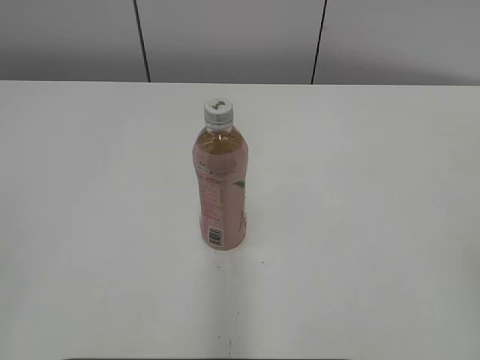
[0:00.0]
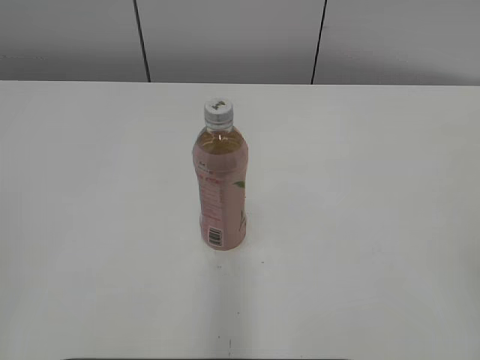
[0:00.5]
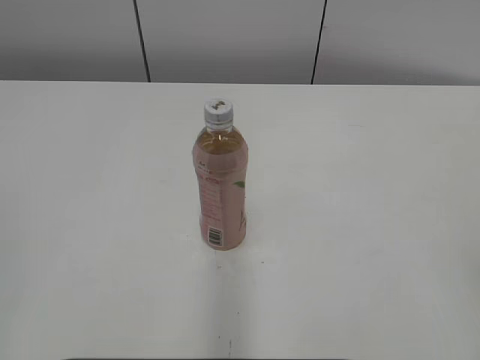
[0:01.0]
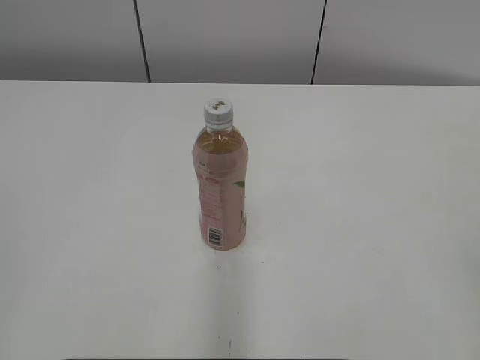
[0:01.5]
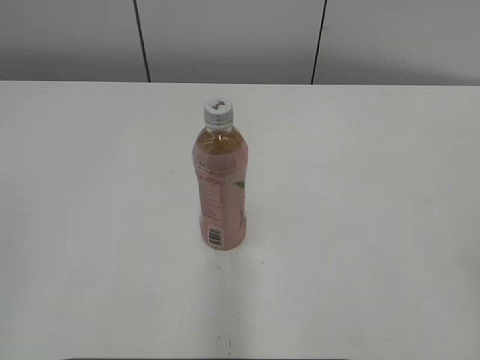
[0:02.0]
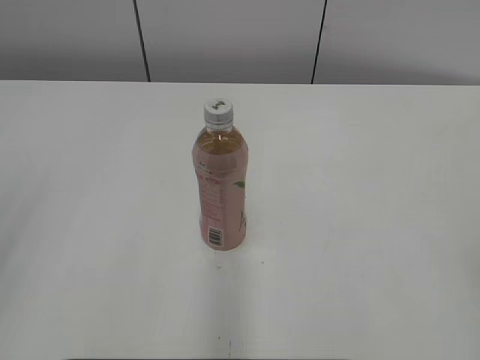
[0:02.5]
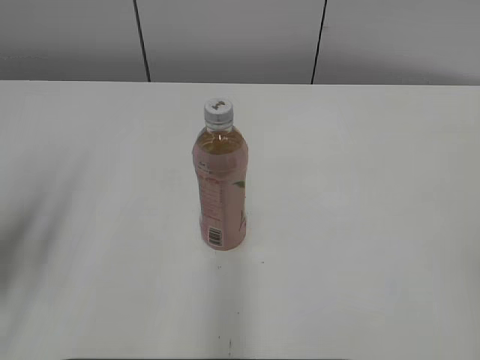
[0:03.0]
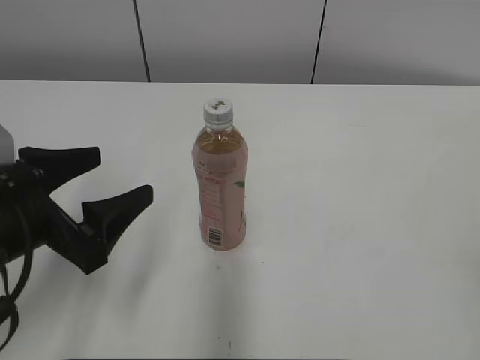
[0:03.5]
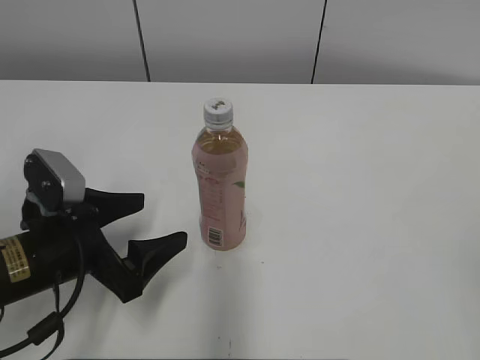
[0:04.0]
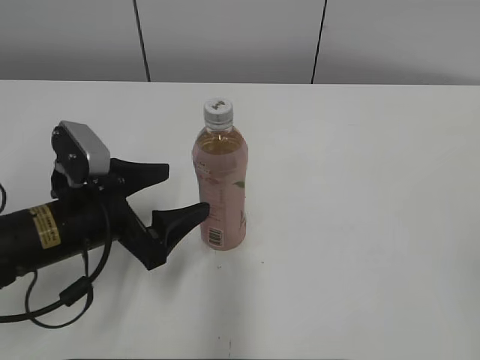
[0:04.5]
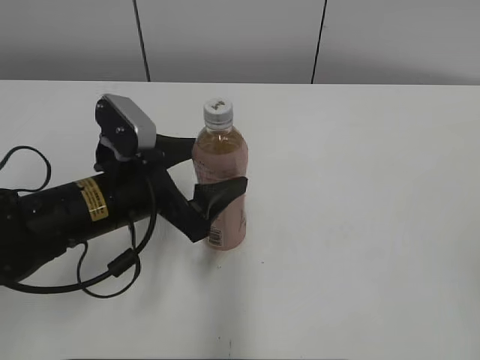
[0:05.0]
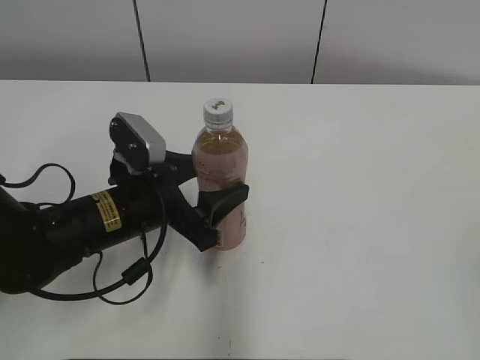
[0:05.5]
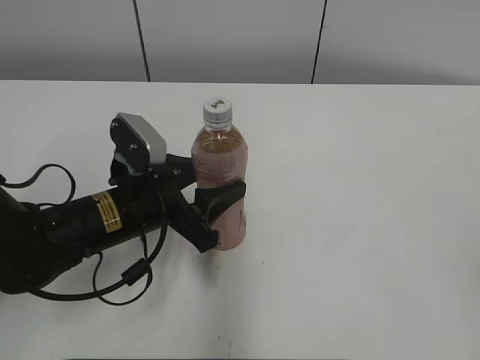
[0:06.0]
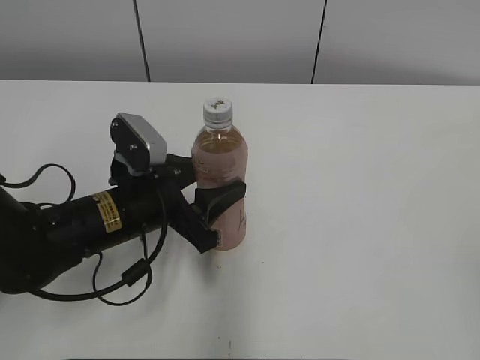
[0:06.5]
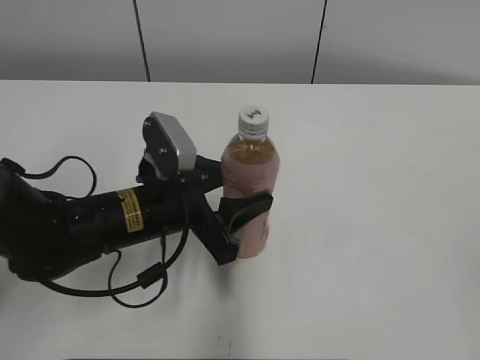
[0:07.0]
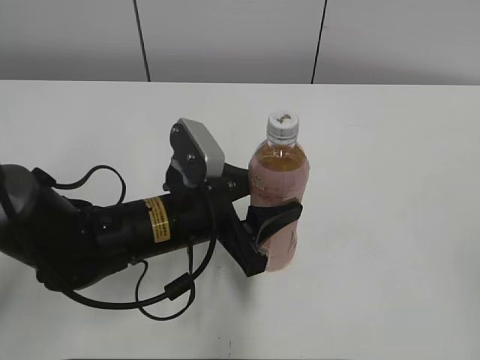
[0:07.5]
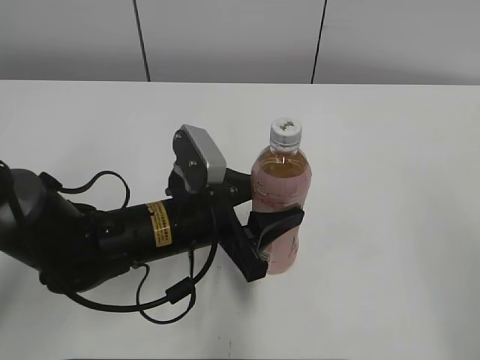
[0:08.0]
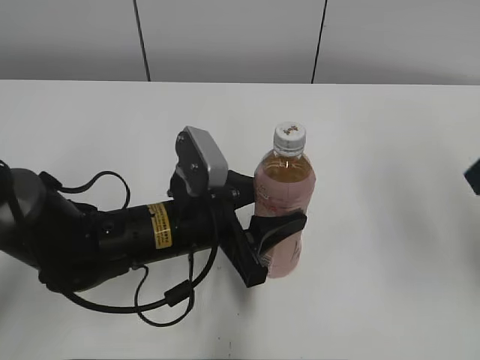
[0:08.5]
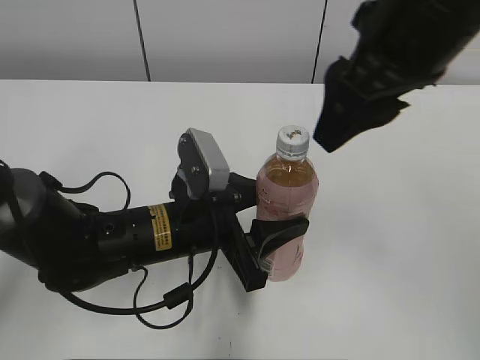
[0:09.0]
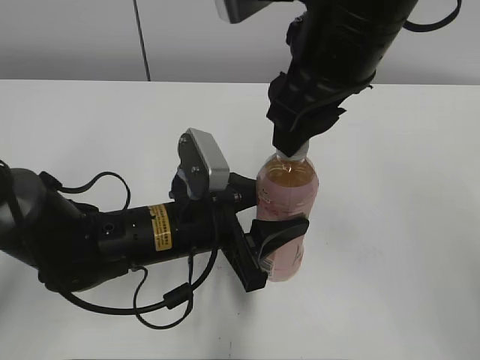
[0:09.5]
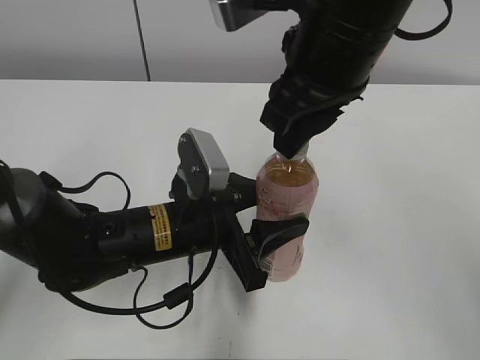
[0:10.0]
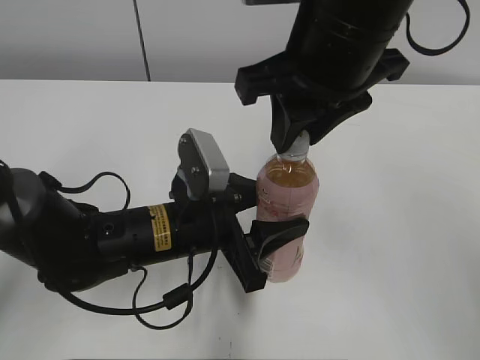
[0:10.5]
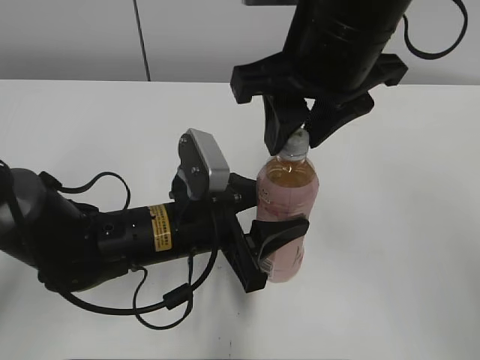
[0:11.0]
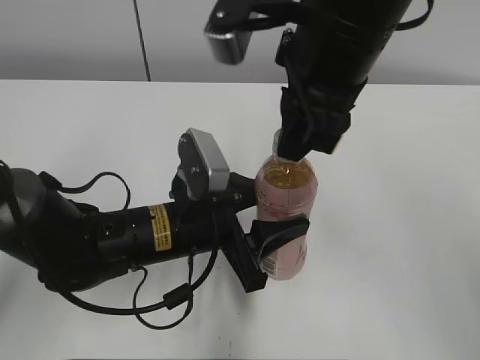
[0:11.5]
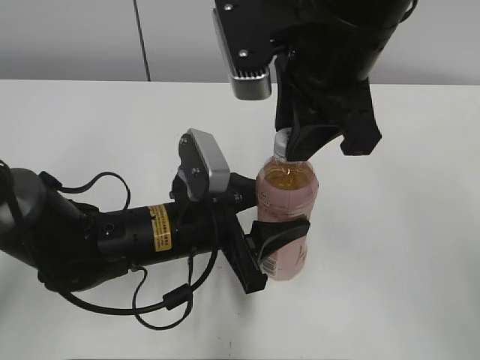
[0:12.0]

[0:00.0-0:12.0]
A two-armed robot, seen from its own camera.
Step, 0:00.0 to 0:05.5: Grab the Peach Oolong Tea with the left hand.
Step, 0:06.0 to 0:08.5: Move the Peach Oolong Tea from left to right.
0:02.0 to 0:04.0: The left gripper moves forward, downward and to the right, about 30 cm, and opens.
0:04.0 to 0:06.0: The left gripper shifts some 10 cm to the right and forward, and closes its fingers.
0:06.0 to 0:08.0: The right gripper ends up about 5 cm from where it was, while the left gripper moves to the right, some 5 cm.
0:08.0 to 0:10.0: The right gripper goes about 30 cm forward and to the left, and closes up.
0:10.0 to 0:12.0: The right gripper opens, then closes again.

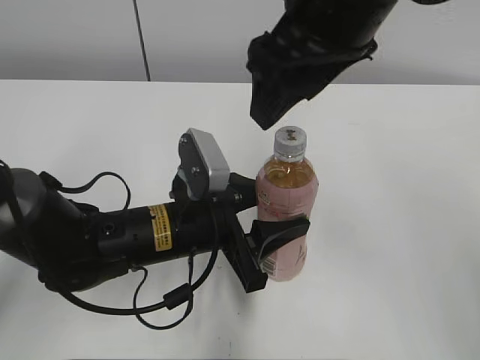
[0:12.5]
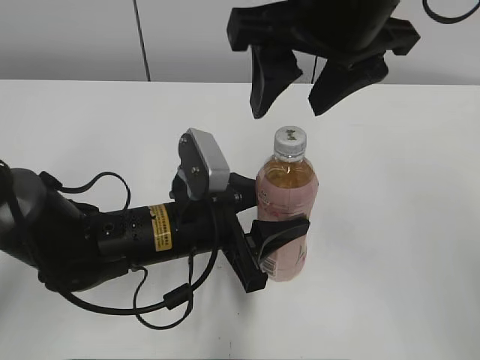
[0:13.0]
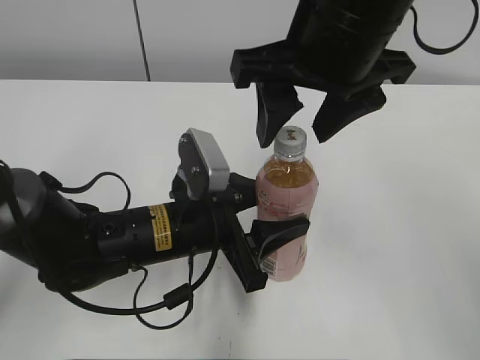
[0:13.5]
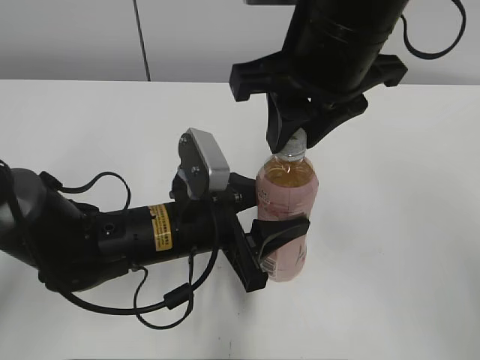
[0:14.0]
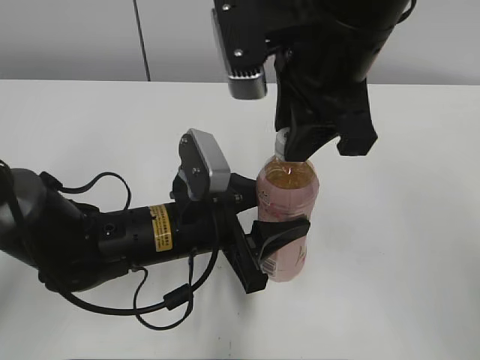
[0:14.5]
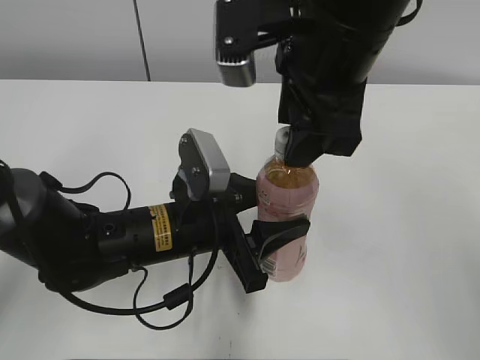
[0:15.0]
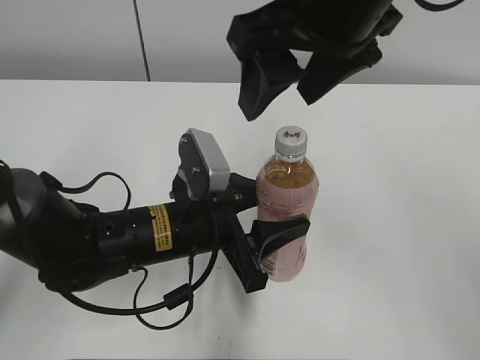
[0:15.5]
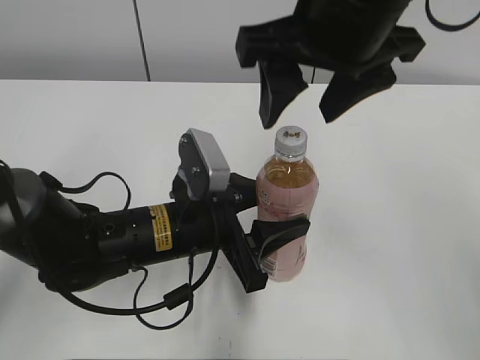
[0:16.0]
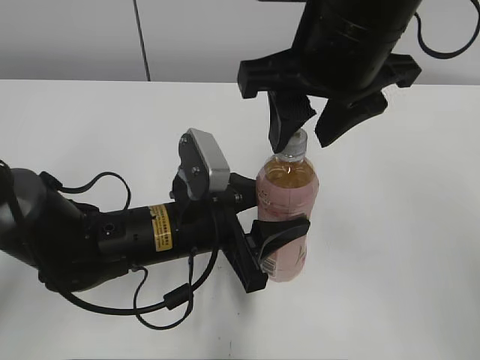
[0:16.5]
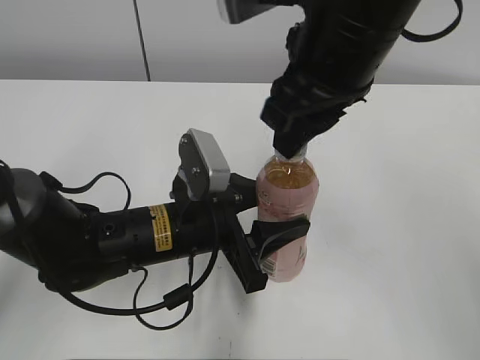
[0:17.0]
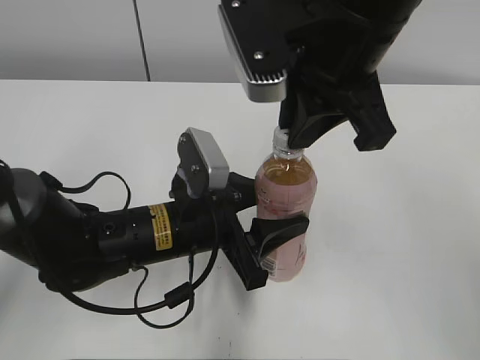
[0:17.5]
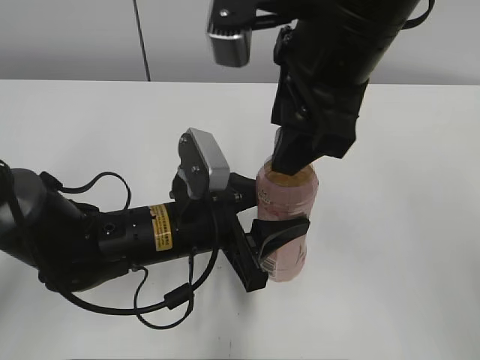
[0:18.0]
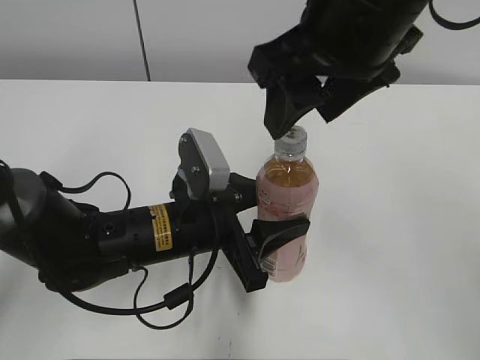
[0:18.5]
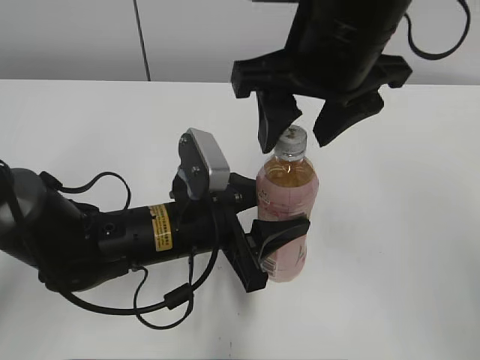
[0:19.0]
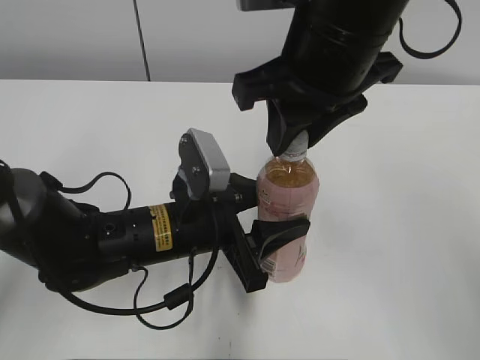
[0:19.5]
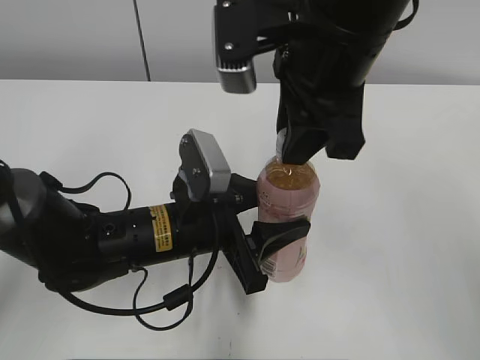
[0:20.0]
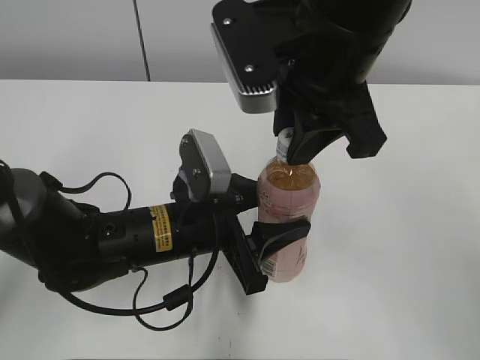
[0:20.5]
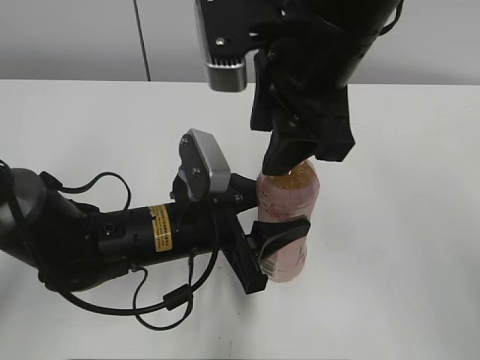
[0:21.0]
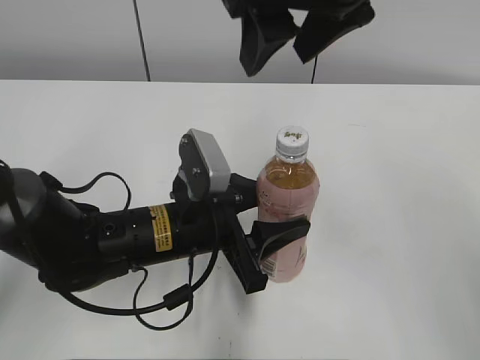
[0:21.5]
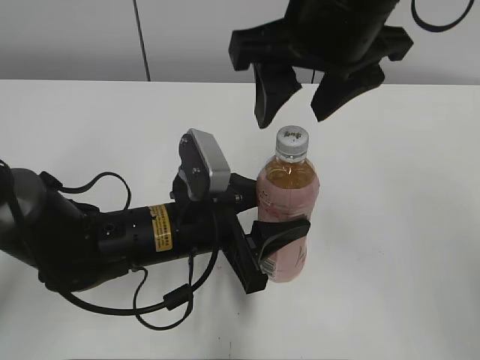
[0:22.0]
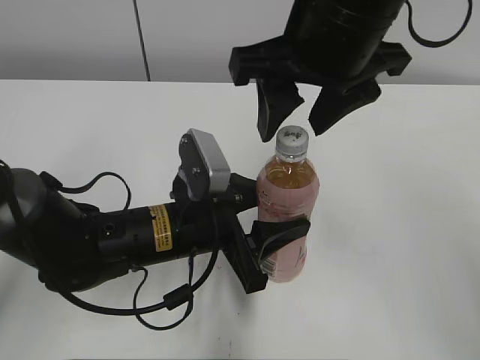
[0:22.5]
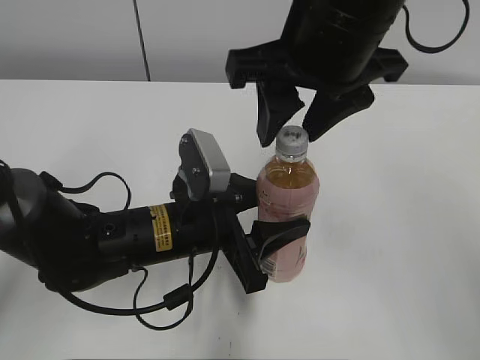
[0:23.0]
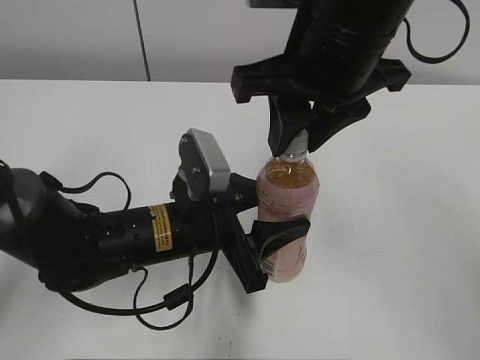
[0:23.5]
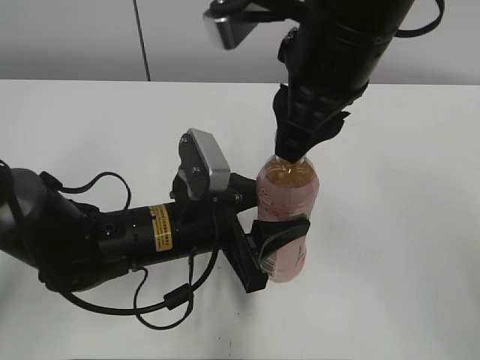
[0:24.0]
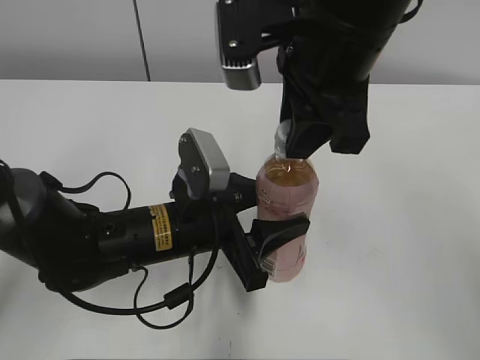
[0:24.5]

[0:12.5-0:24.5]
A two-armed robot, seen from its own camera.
0:12.5 to 0:14.5: The right gripper closes up.
0:14.5 to 0:16.5: The right gripper opens its fingers.
0:16.5 to 0:18.5: The right gripper closes and opens again.
0:18.5 to 0:20.5: The right gripper closes.
0:20.5 to 0:22.5: The right gripper opens its fingers.
0:22.5 to 0:24.5: The right gripper closes its fingers.

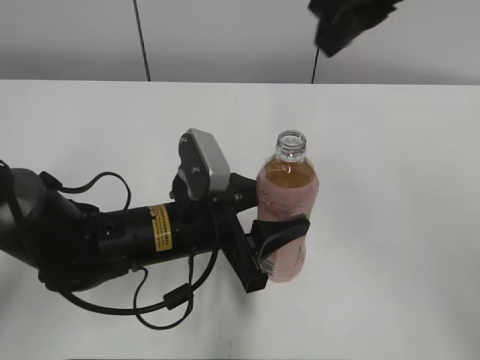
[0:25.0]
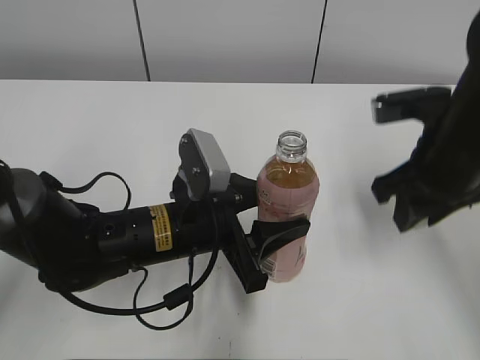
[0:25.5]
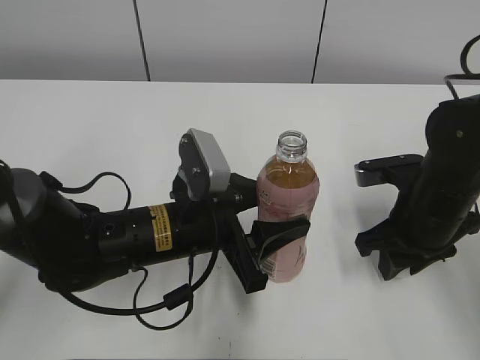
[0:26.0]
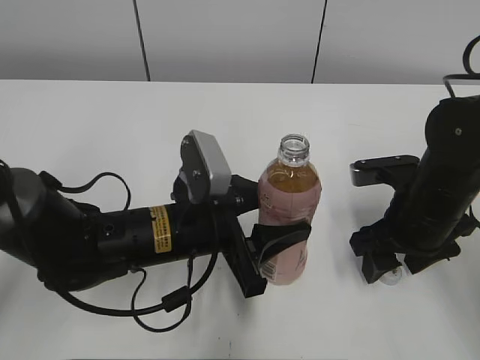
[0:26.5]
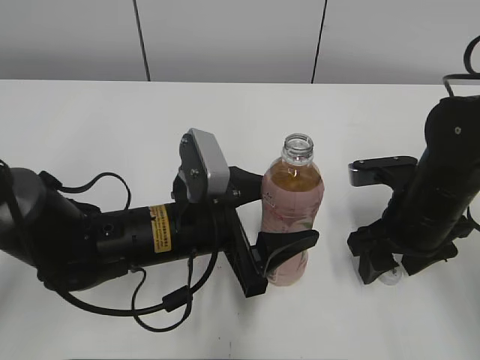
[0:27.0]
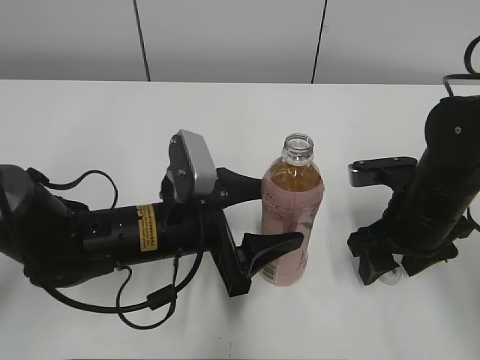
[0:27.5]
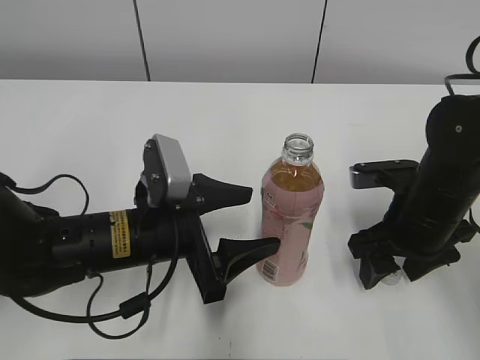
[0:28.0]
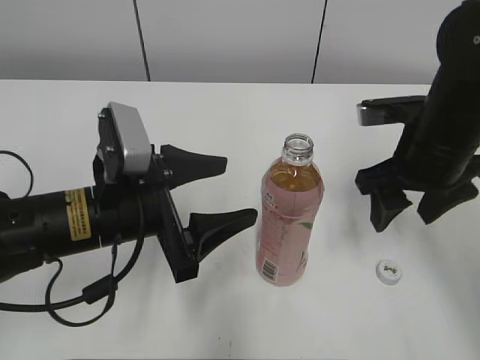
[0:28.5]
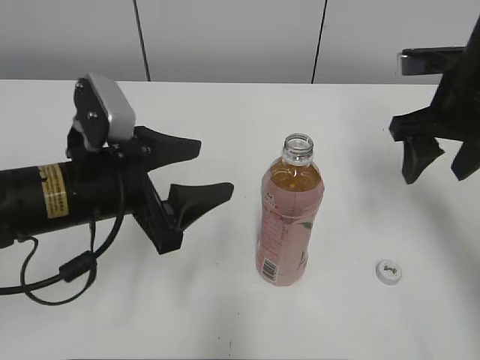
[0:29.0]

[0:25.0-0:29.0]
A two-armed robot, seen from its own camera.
Step, 0:25.0 to 0:26.0: Place the bottle cap on the right.
Step, 0:26.5 to 0:27.5: Place the Peach Oolong Tea with the left hand.
0:25.0 to 0:27.0: The right gripper shifts approximately 25 cm downward, and opens up. Meanwhile the left gripper opens its fingers.
0:27.0 to 0:29.0: The left gripper shifts about 10 cm to the left and upward, while the right gripper is displaced upward and forward by approximately 10 cm.
